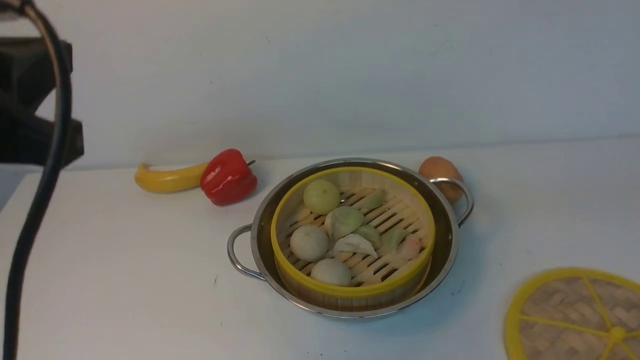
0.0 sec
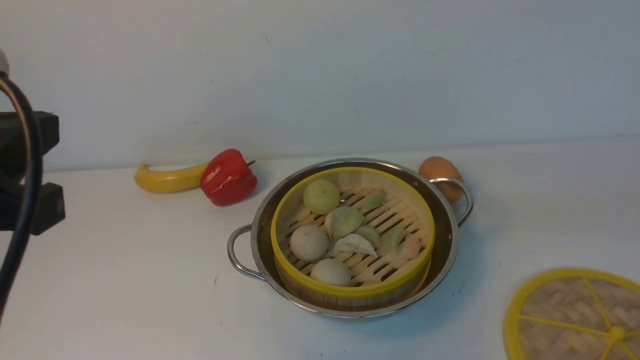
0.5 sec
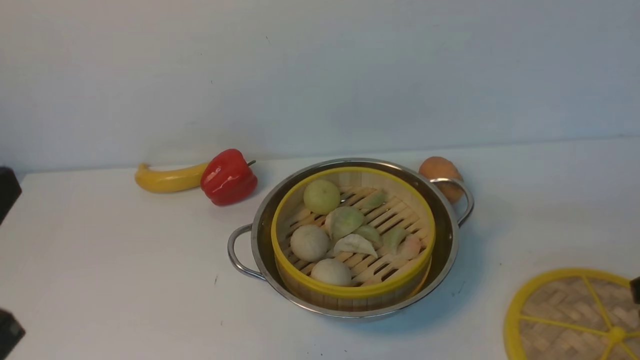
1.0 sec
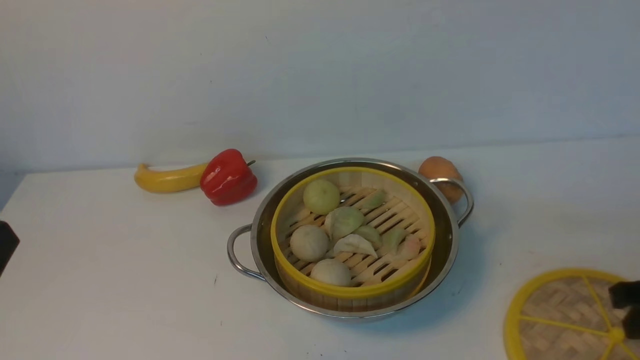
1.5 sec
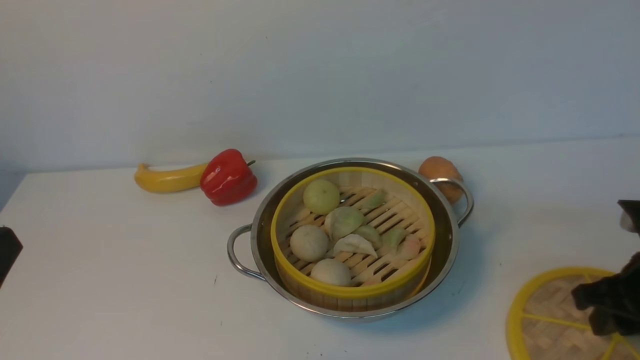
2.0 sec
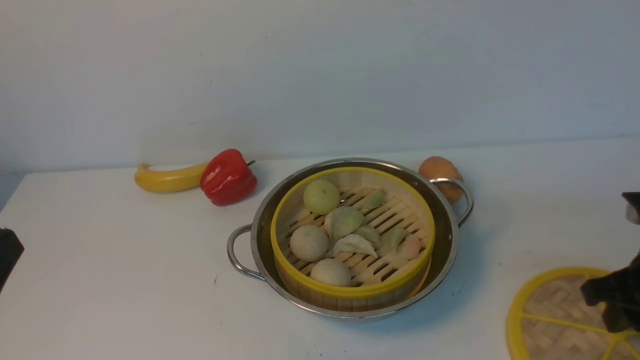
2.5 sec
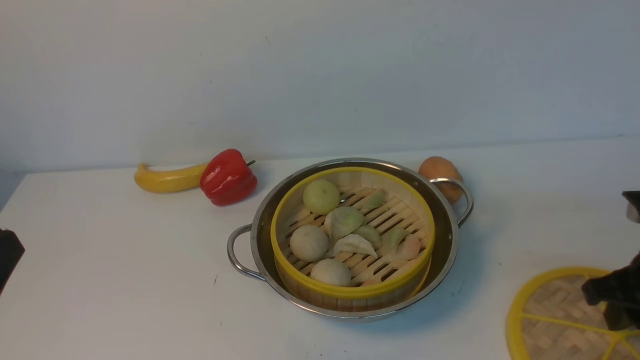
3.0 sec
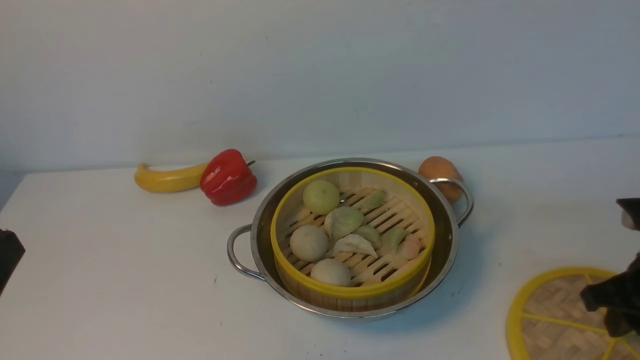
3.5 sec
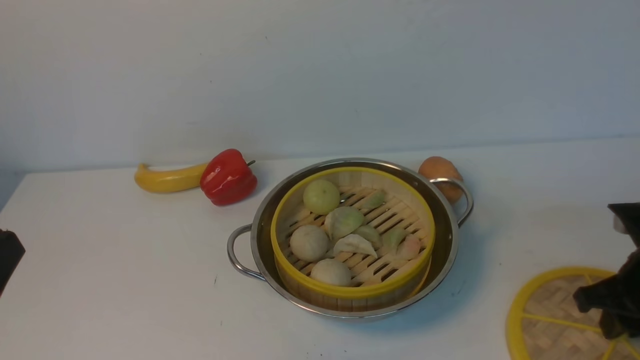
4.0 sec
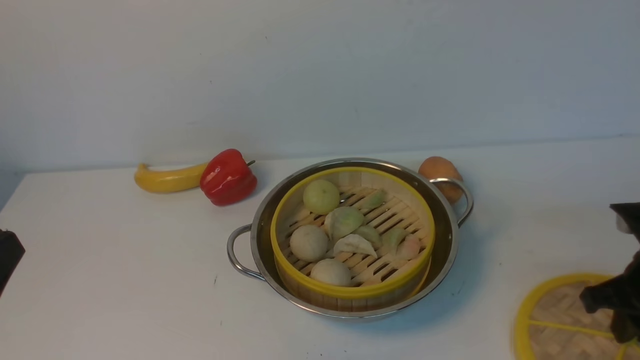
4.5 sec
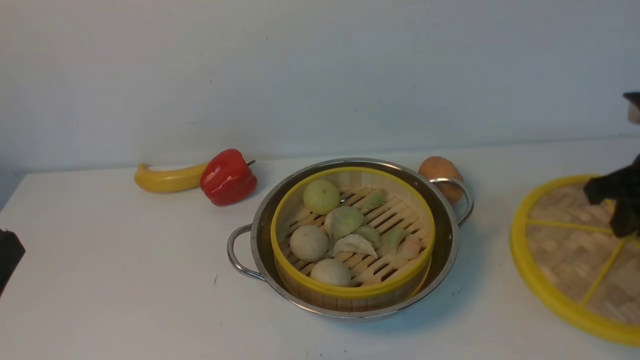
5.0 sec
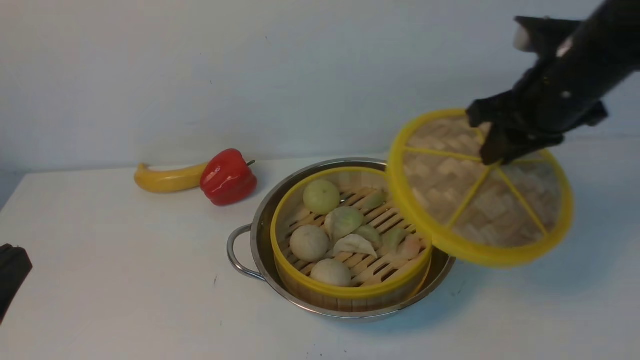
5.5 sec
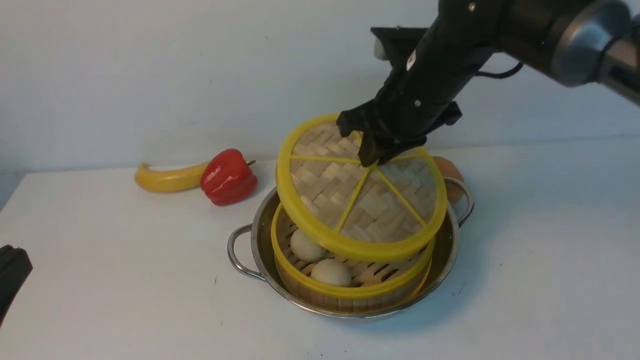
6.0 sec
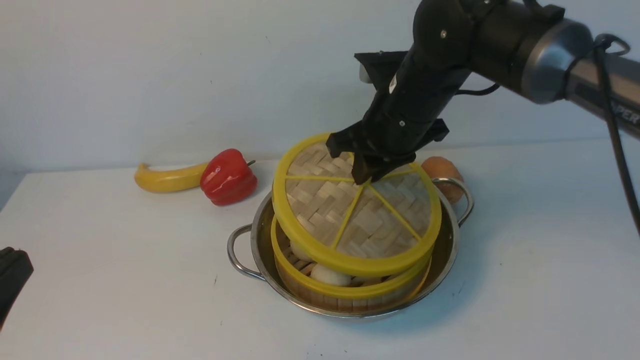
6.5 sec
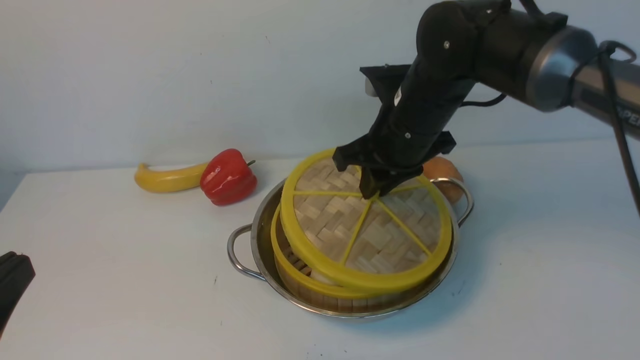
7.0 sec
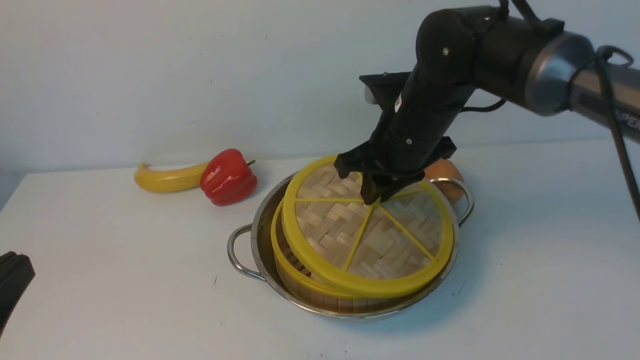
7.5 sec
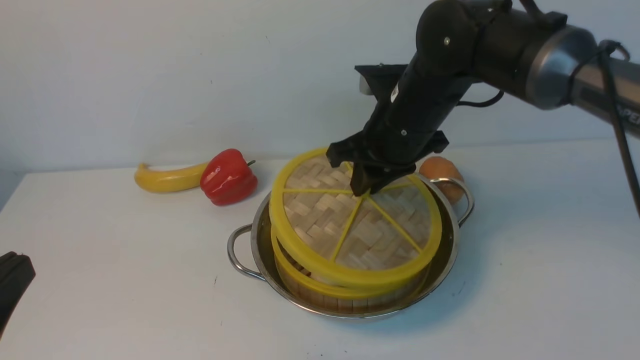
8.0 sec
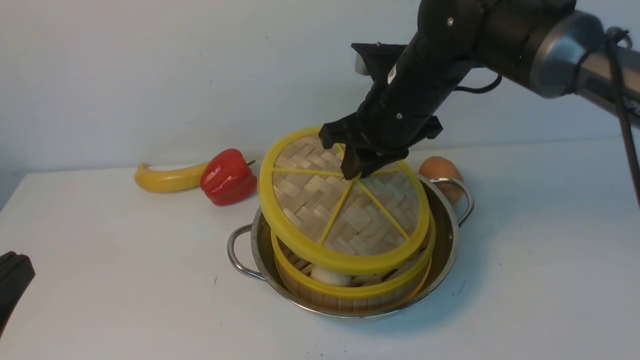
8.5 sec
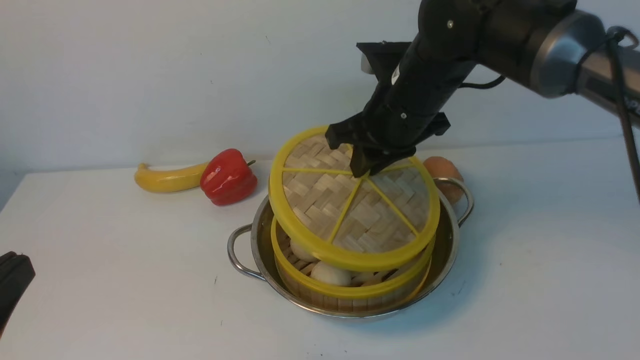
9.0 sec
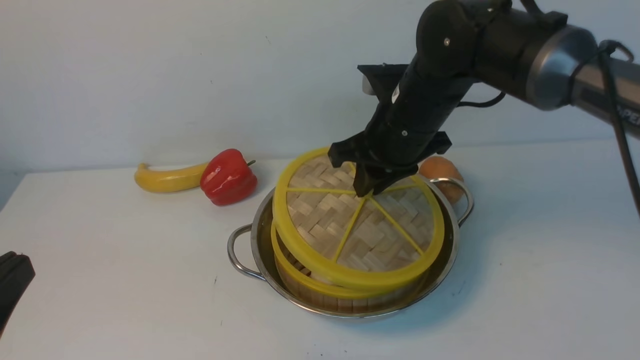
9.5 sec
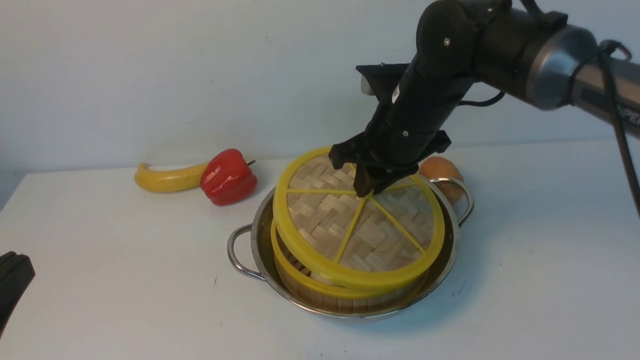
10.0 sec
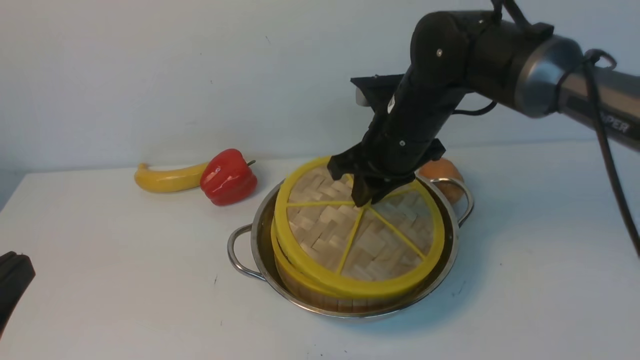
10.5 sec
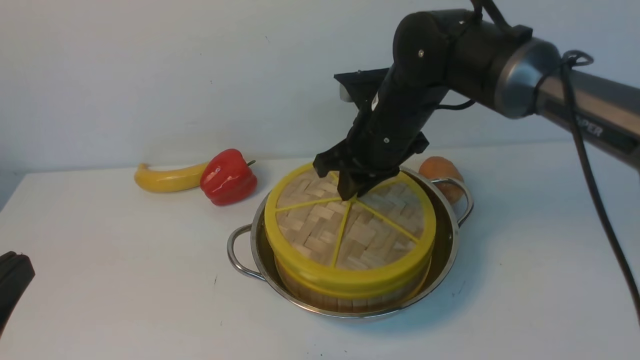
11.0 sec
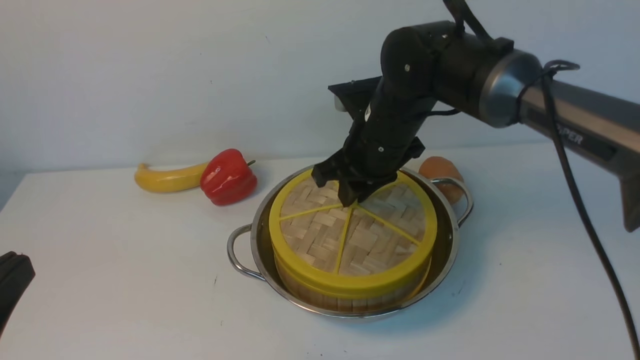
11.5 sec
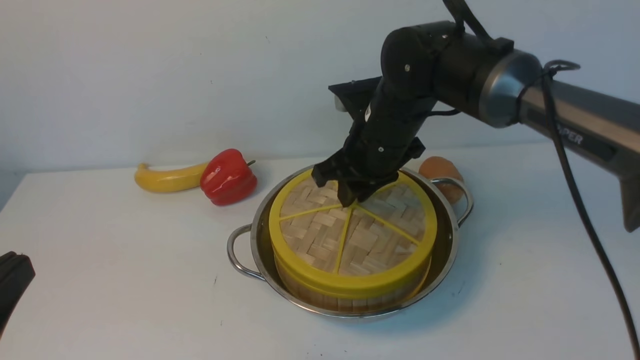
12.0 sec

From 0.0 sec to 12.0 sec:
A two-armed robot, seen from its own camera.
Task of the whole recording: place the steamer in the pot on the white table, and put the lid on the steamer.
Step, from 0.0 sec to 5.0 sec: use the right arm to lift the lid of the steamer.
From 0.0 sec to 2.0 sec: The left gripper heads downward and backward, covering approximately 15 cm; the right gripper travels downward and forward by about 20 cm.
From 4.0 sec to 6.0 sec: The right gripper goes roughly 30 cm to the left, forward and upward.
From 6.0 sec to 8.0 sec: There are only small adjustments of the grippers.
From 8.0 sec to 10.0 sec: Both grippers stay put.
From 10.0 sec to 12.0 sec: The grippers move only a little.

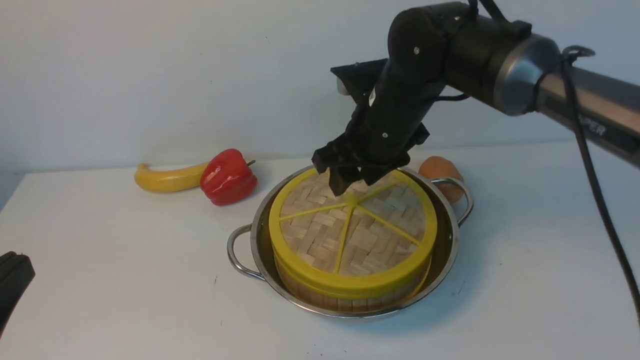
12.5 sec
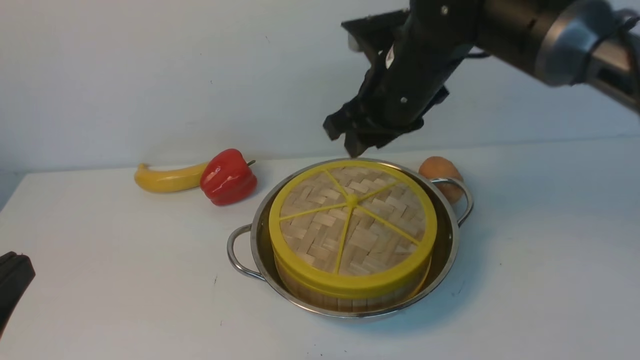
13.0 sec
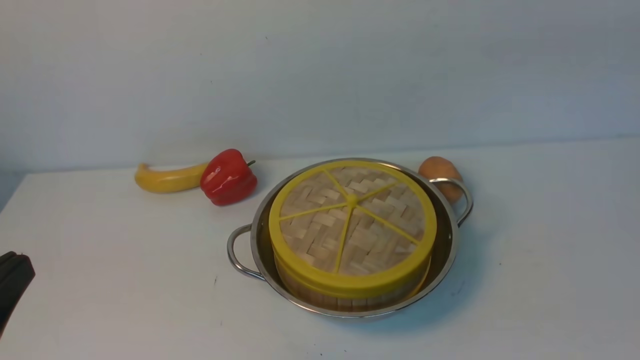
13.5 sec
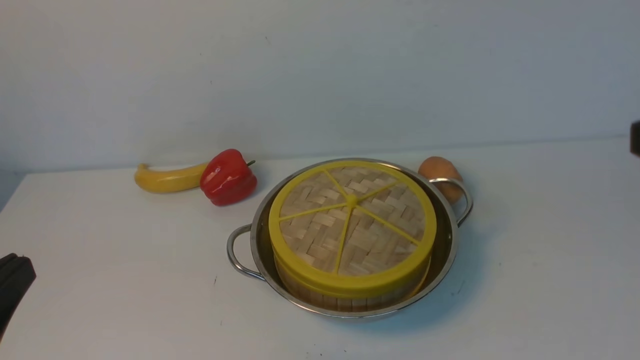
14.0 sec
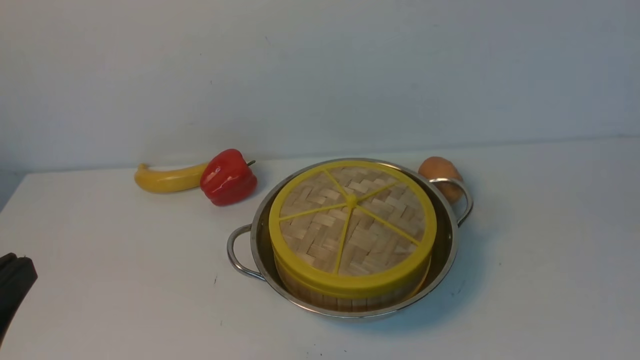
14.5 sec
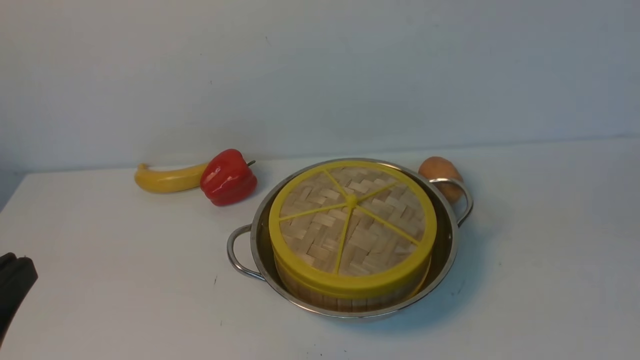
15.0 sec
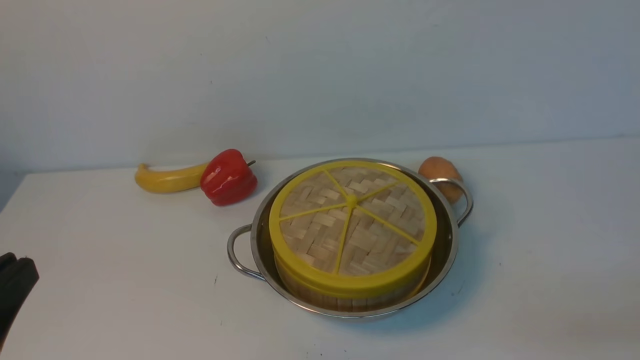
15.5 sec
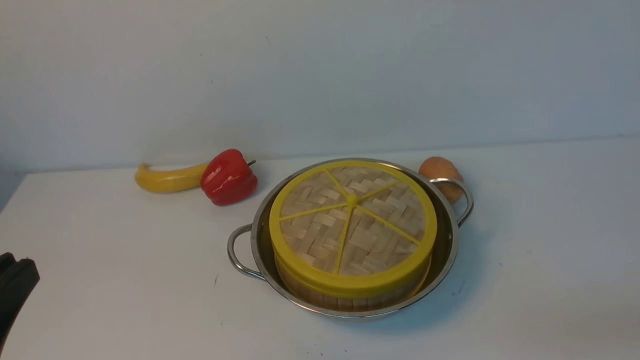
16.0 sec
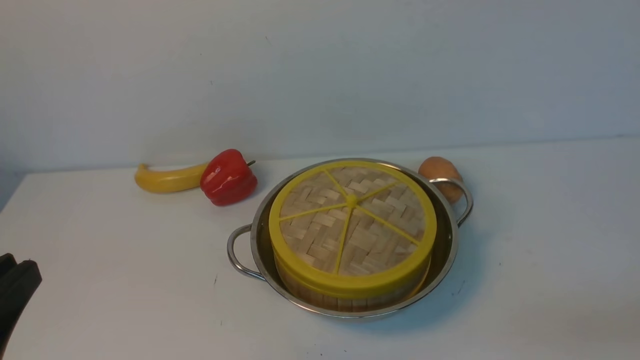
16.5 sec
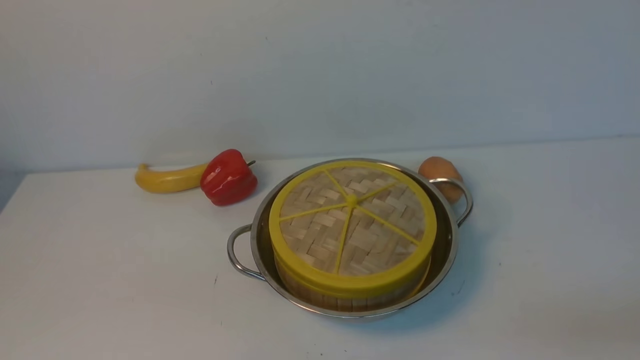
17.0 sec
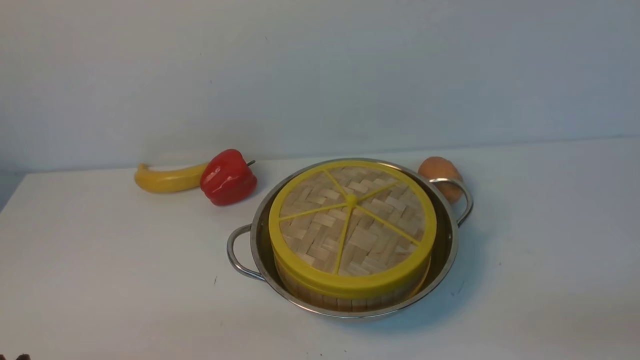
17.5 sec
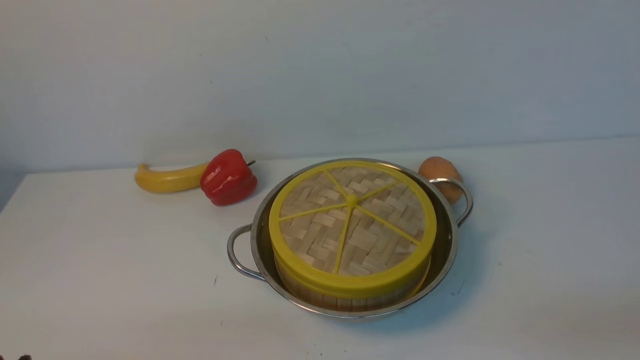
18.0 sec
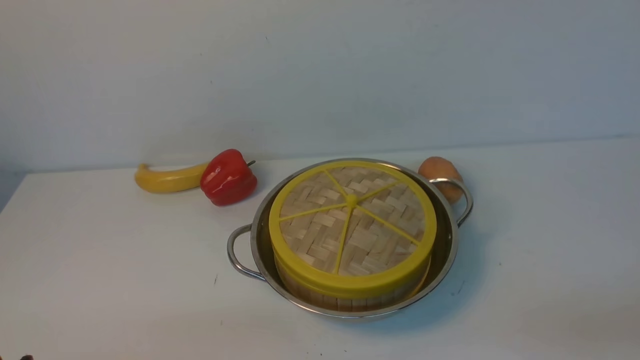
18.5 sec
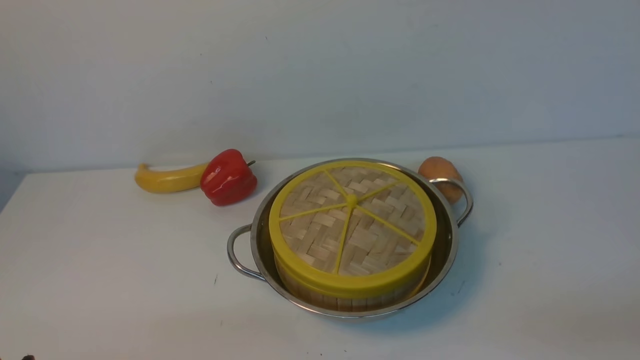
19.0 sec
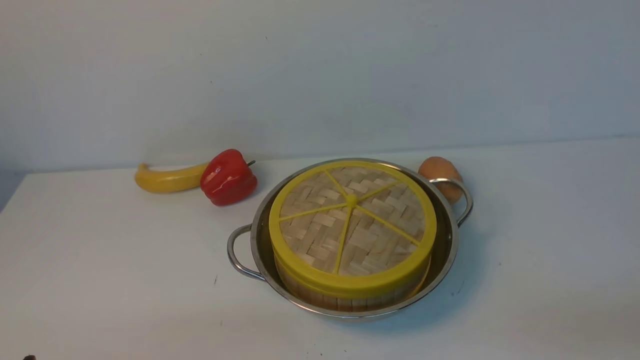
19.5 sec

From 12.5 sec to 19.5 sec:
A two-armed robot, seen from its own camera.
Task of the whole recording: place the steamer in the pot on the white table, and put the lid on the steamer.
From 12.5 sec to 14.5 sec: The right gripper travels backward, to the right and upward by about 35 cm, and closes.
From 16.0 sec to 17.5 sec: The left gripper travels downward by approximately 10 cm.
